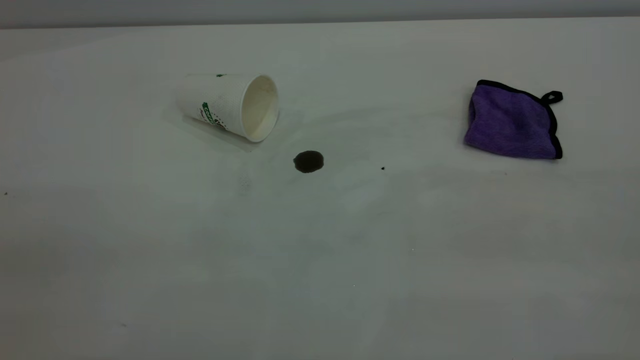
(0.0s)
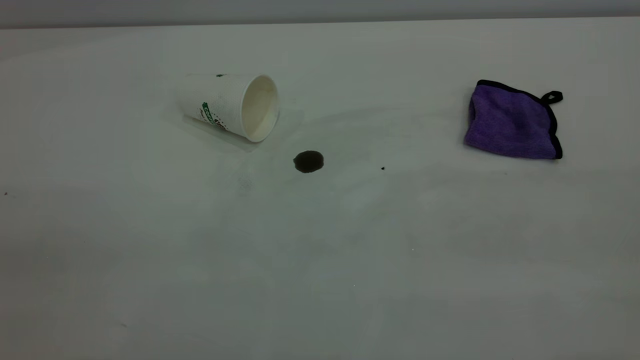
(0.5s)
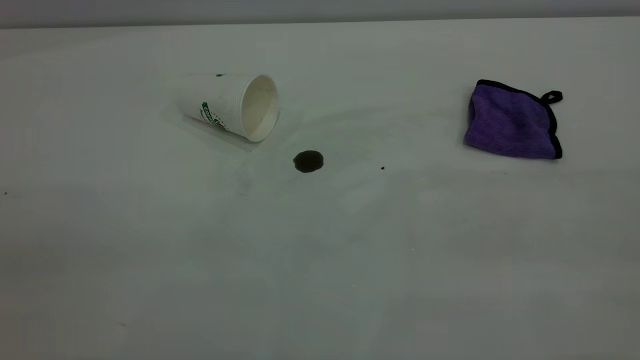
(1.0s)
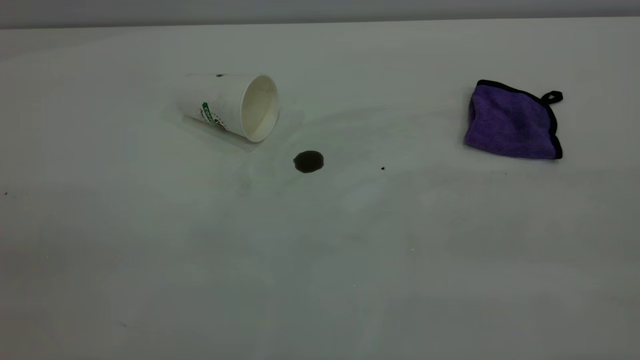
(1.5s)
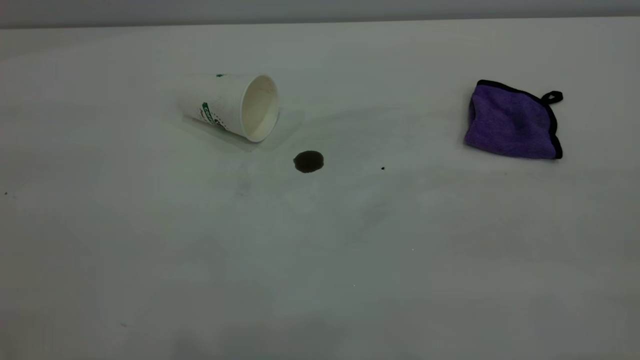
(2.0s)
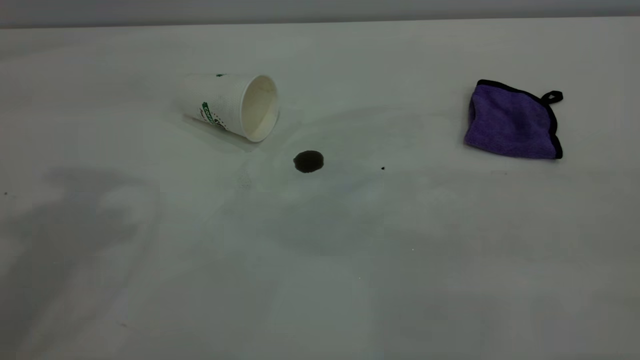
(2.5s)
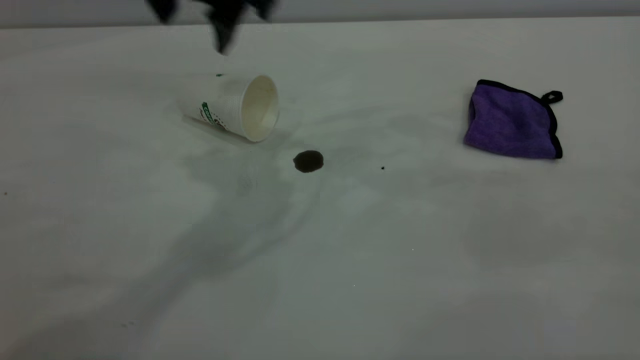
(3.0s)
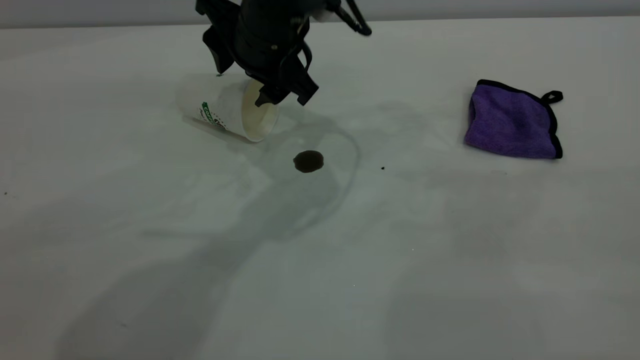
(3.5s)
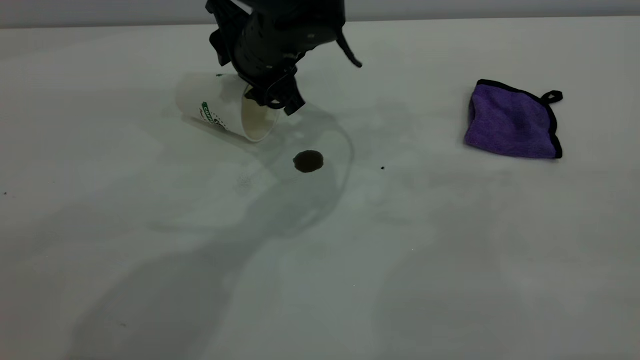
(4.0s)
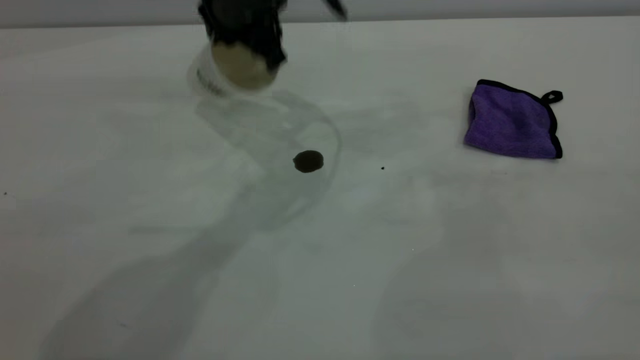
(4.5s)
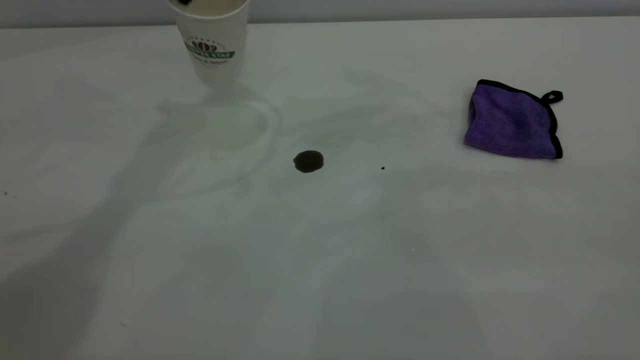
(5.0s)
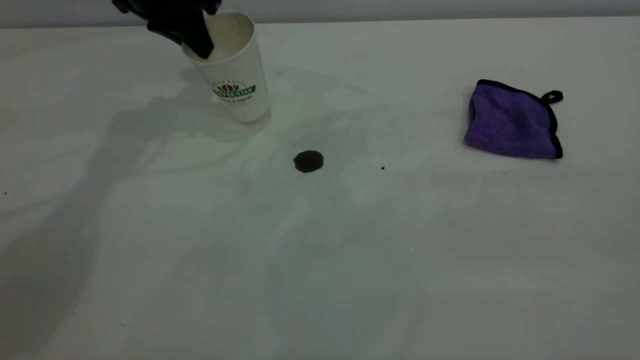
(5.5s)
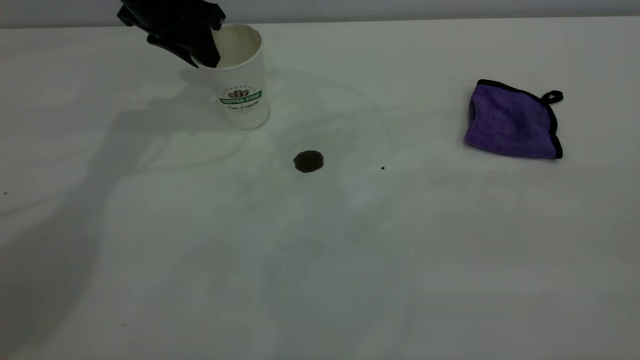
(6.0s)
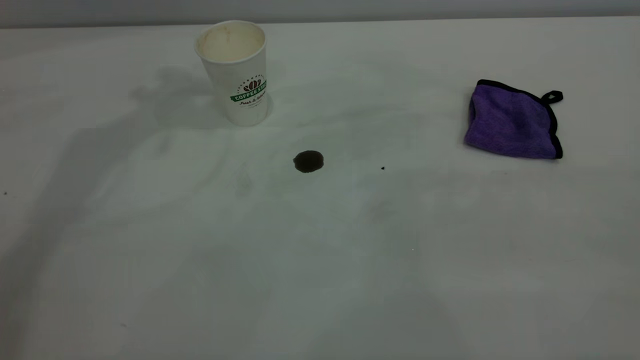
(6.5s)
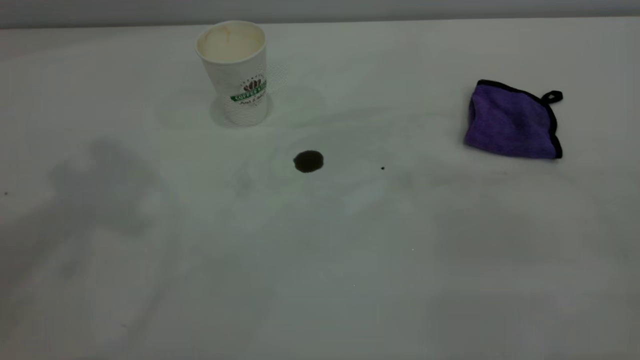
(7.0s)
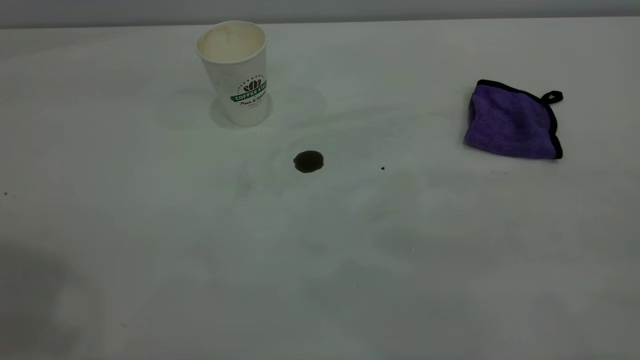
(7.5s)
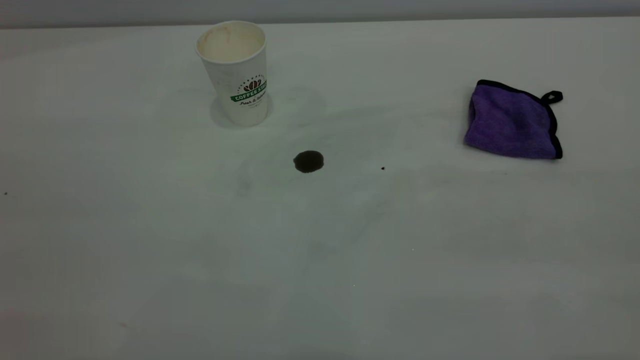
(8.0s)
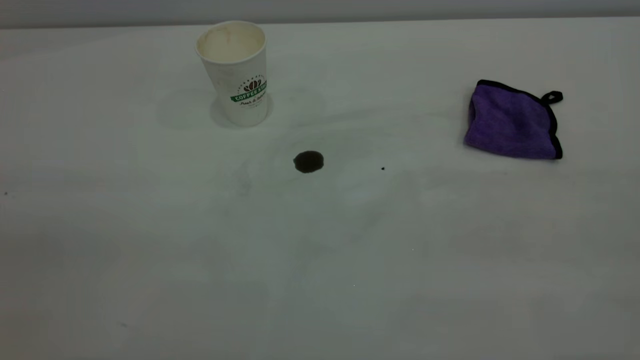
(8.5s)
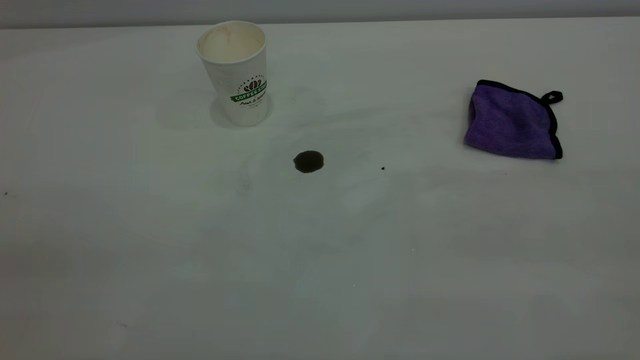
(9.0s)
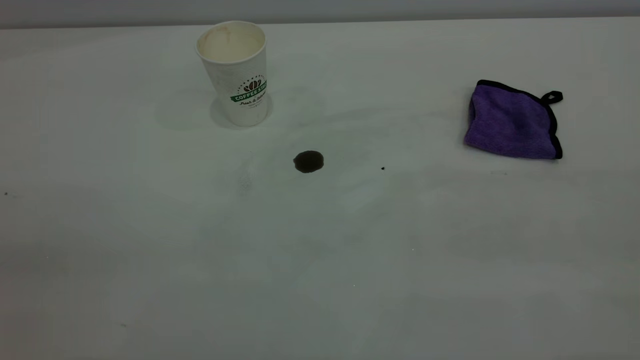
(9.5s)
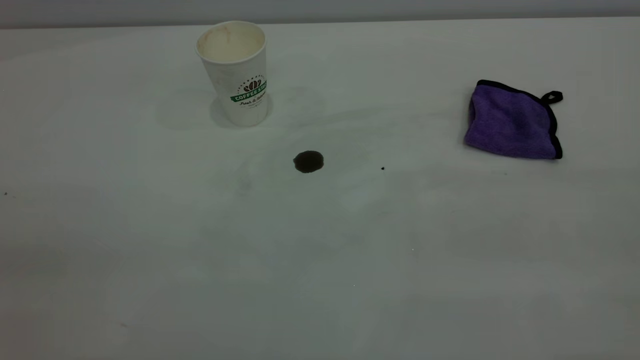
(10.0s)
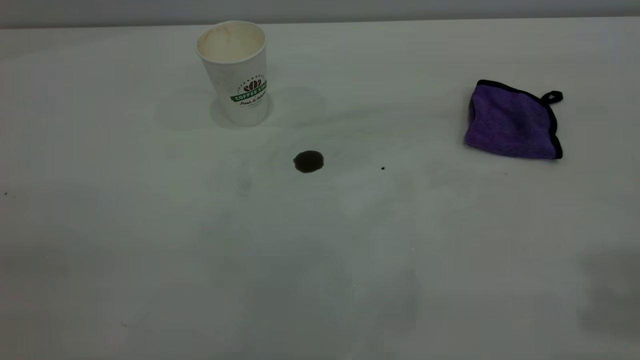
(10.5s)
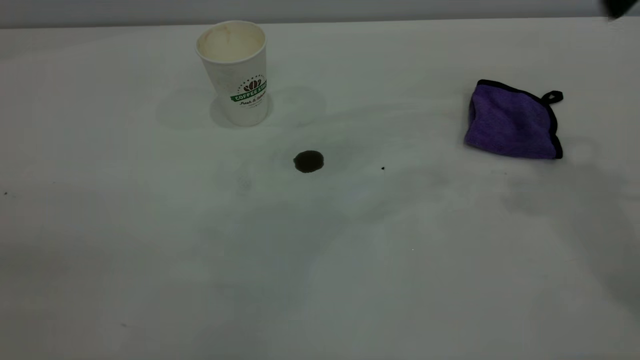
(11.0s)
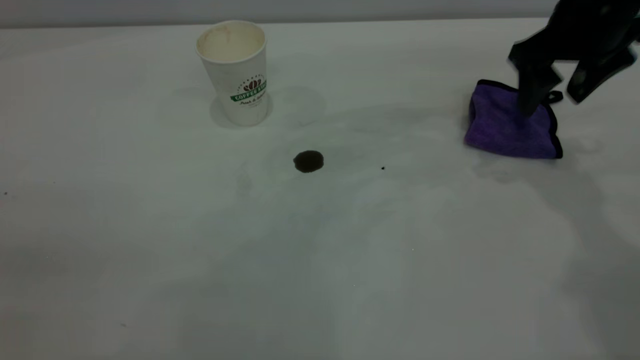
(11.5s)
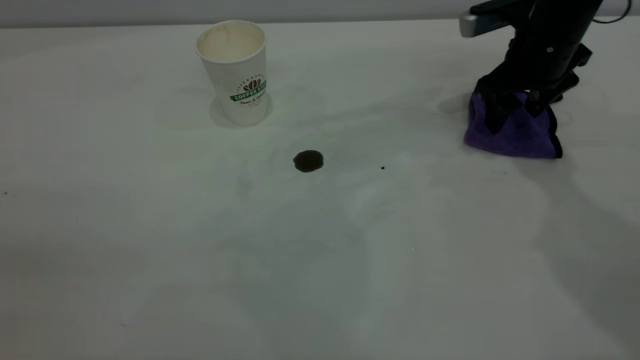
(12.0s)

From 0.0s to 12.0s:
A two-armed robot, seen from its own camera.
Task of the whole recording: the left gripper pick up the fallen cup and place it upright, the right gripper grasp the purple rag and wipe the coffee stain on the table, the right gripper put the purple rag back in its original position.
Step, from 0.0s to 6.0s: Stand the paper cup upright.
From 2.0s to 4.0s: The left gripper is displaced forward, downward and to the right by approximately 50 cm.
From 4.0s to 6.0s: The left gripper shifts about 15 cm to the left and forward, and closes and opens again.
From 6.0s to 8.0s: The left gripper travels backward and upward by roughly 50 cm.
From 10.0s to 12.0s: The right gripper travels forward and downward by some 50 cm.

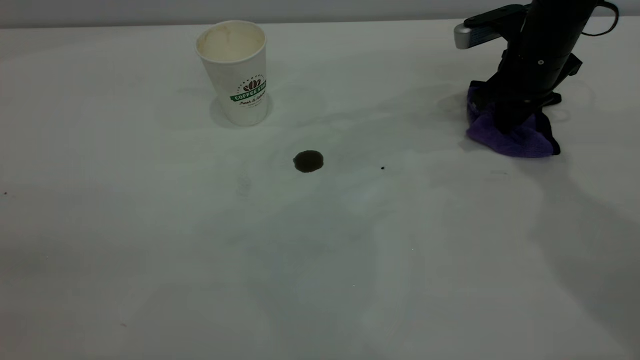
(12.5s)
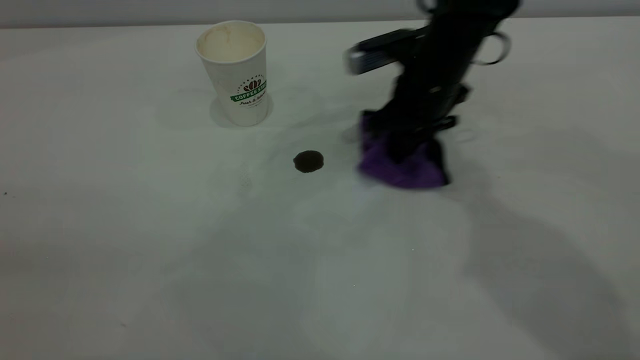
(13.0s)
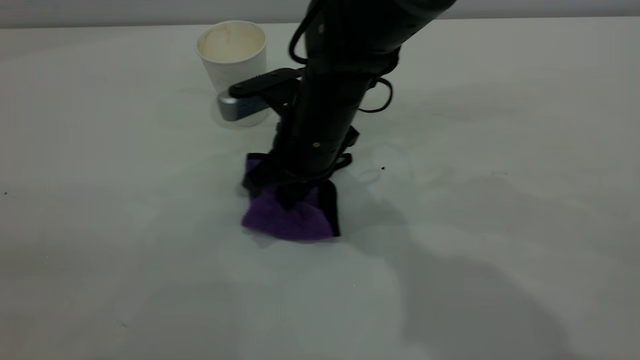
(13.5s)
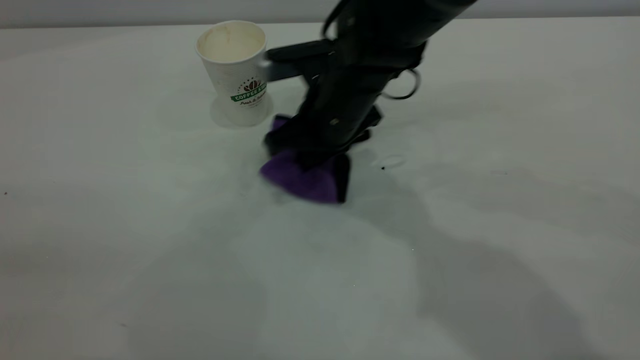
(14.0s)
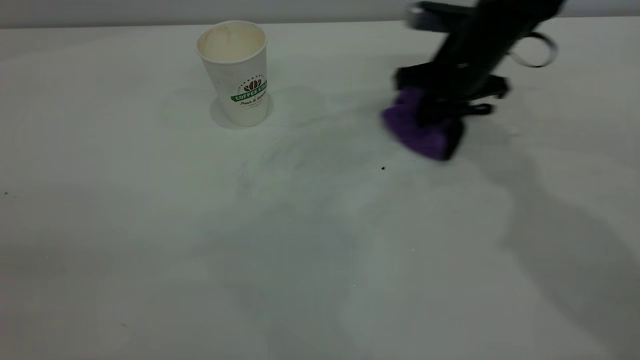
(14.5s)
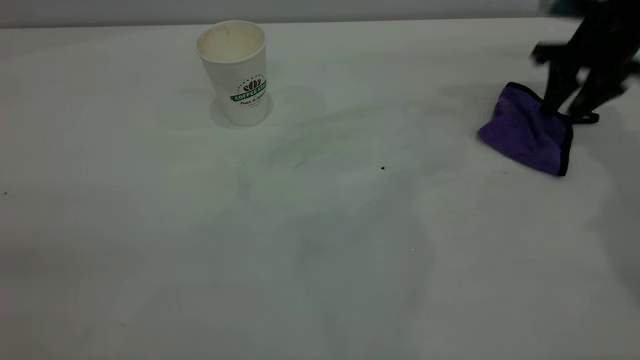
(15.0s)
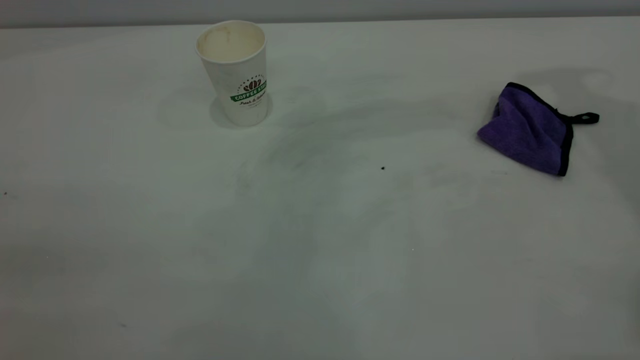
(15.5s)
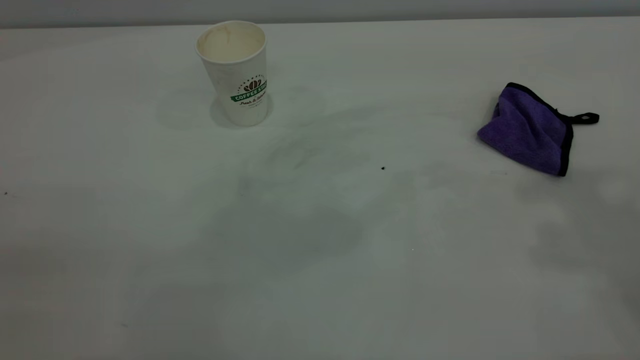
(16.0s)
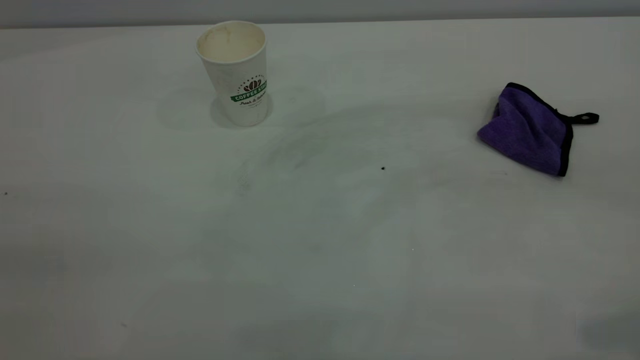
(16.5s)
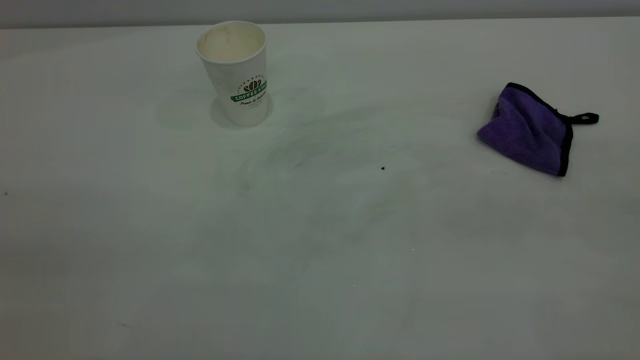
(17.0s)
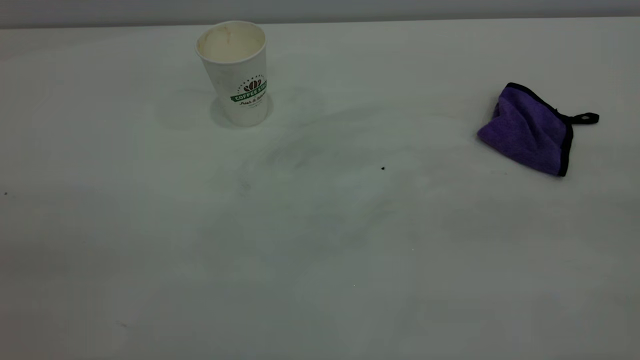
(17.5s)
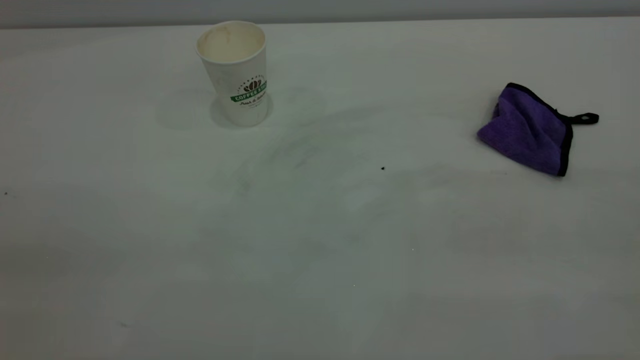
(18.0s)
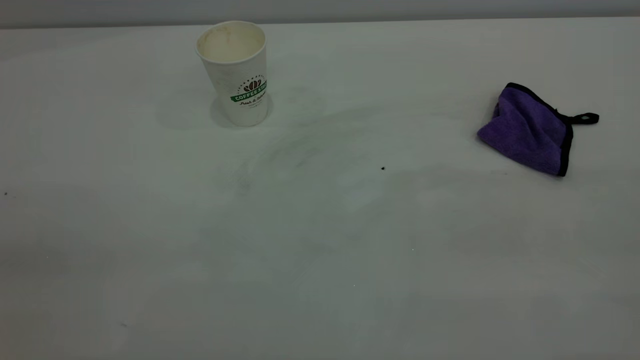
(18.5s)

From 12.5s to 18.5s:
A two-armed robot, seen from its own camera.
Task of the whole recording: the left gripper pick up the fallen cup and place it upright, the right gripper grasp the purple rag and wipe the coffee stain on the table, the right gripper put the purple rag back in its original position.
Step, from 12.5s to 15.0s: Wipe the stains off the table with a rag.
From 12.5s to 14.5s: The right gripper reaches roughly 25 cm to the left, then returns.
From 14.5s to 16.5s: The right gripper goes about 50 cm backward and upward, and opens up.
